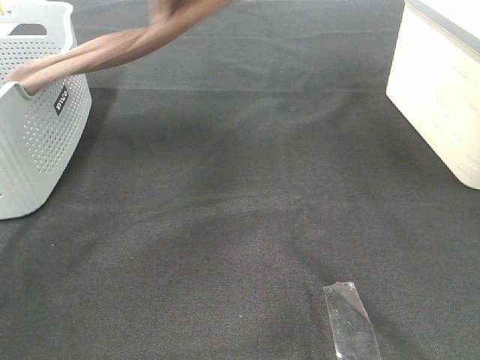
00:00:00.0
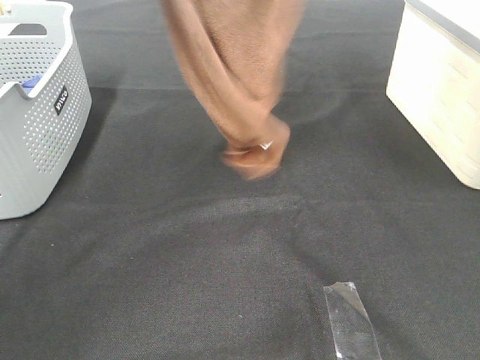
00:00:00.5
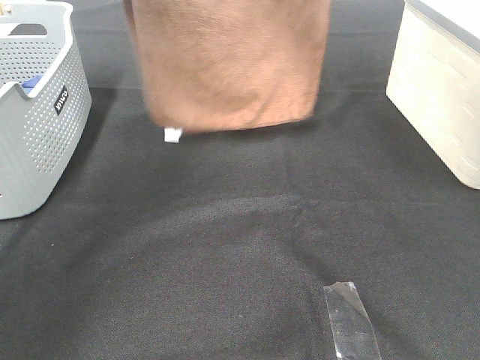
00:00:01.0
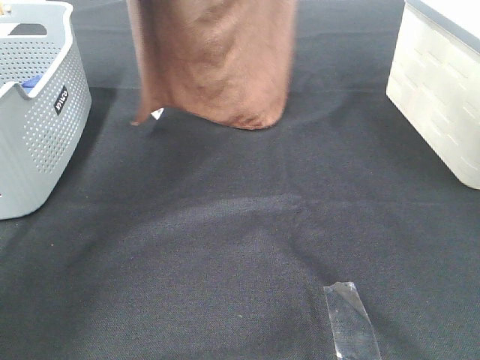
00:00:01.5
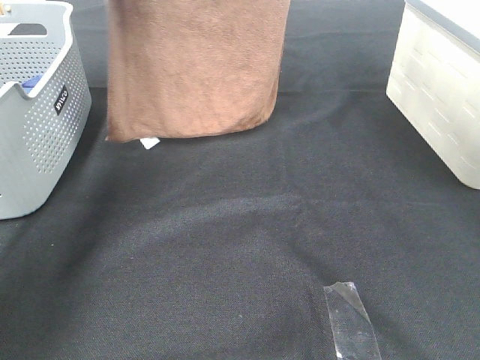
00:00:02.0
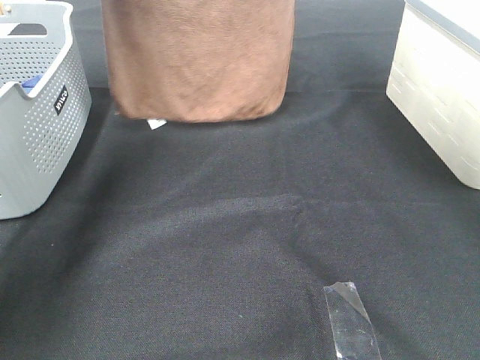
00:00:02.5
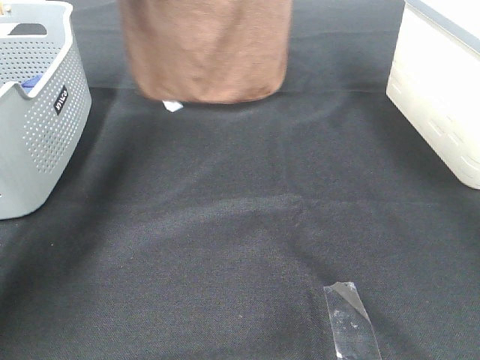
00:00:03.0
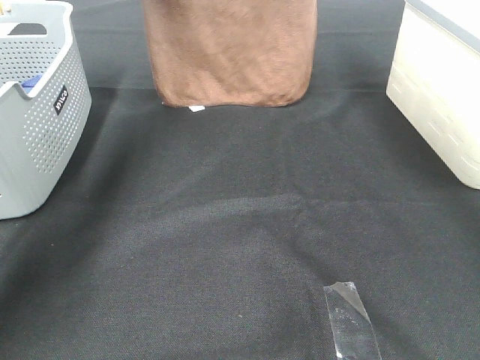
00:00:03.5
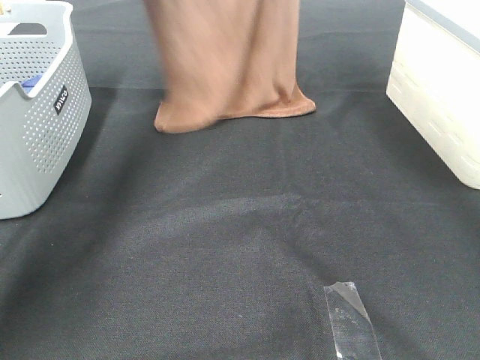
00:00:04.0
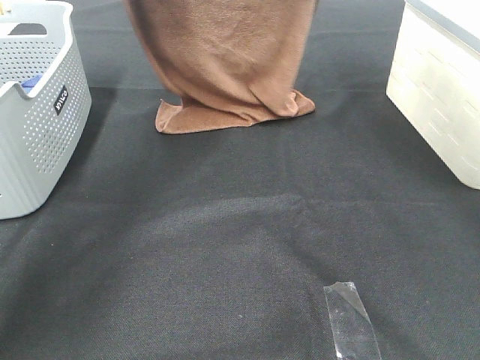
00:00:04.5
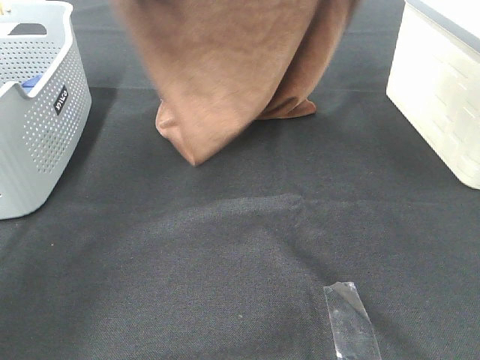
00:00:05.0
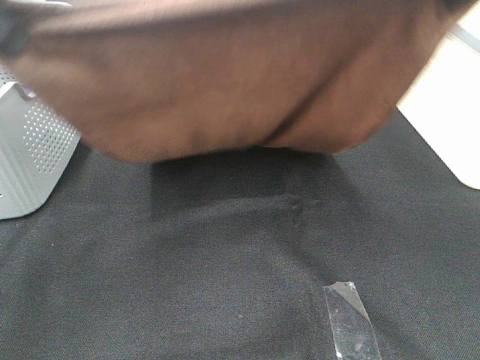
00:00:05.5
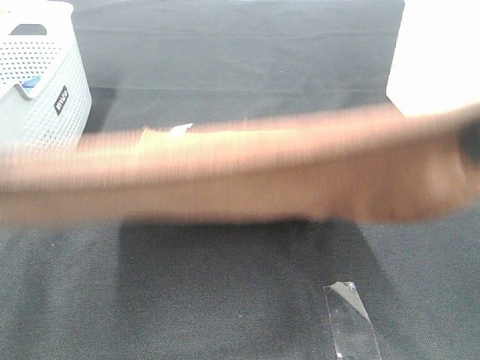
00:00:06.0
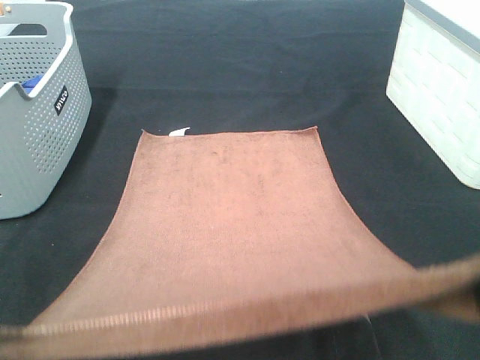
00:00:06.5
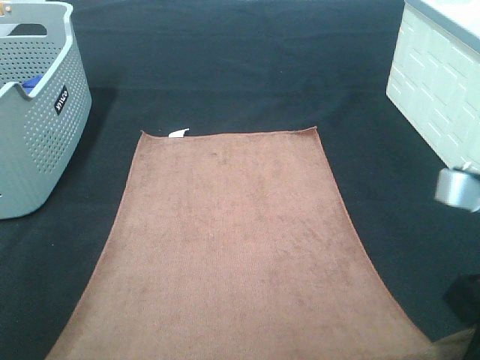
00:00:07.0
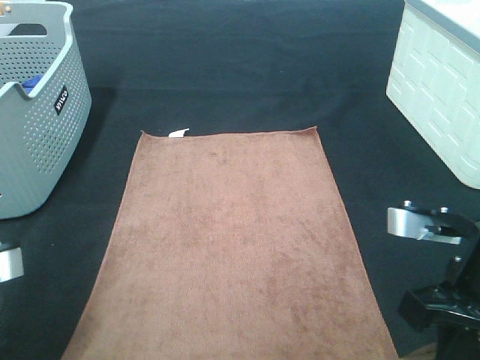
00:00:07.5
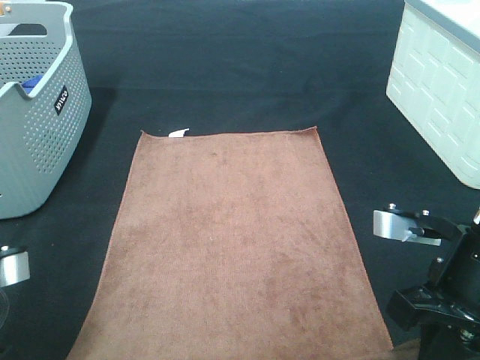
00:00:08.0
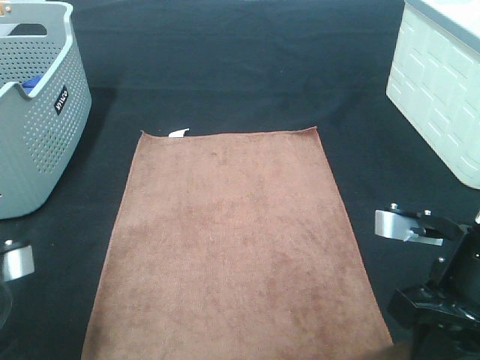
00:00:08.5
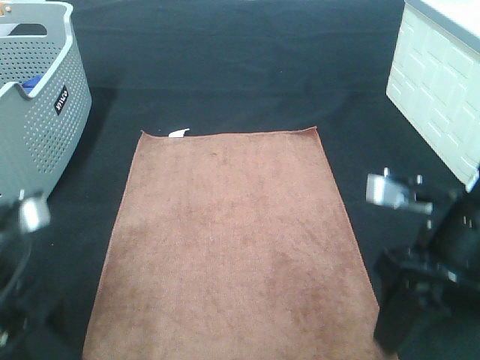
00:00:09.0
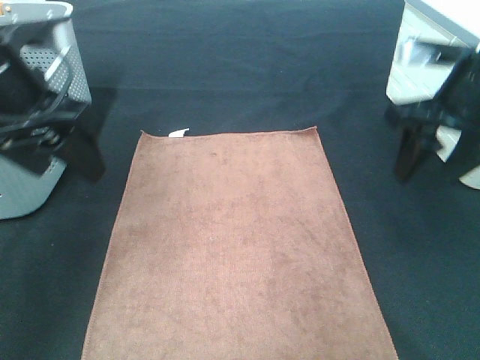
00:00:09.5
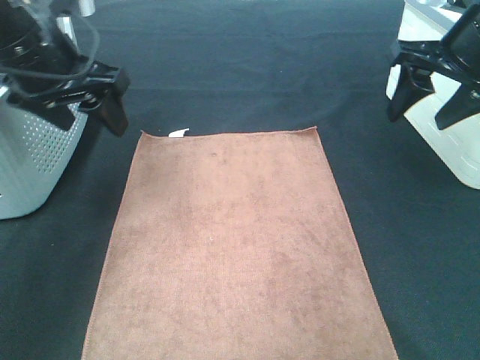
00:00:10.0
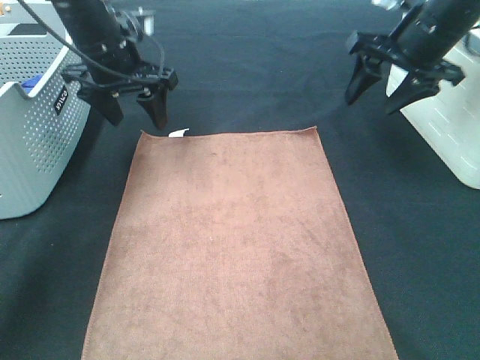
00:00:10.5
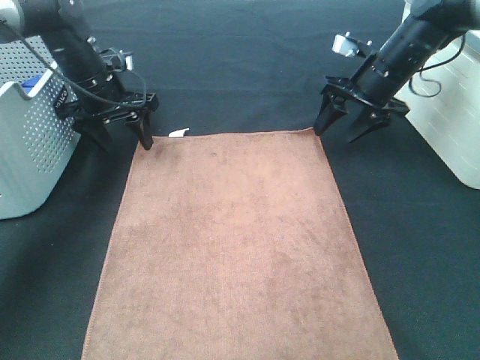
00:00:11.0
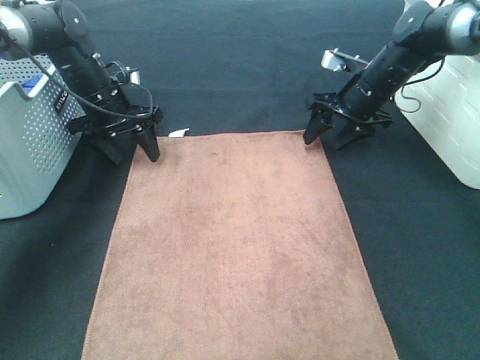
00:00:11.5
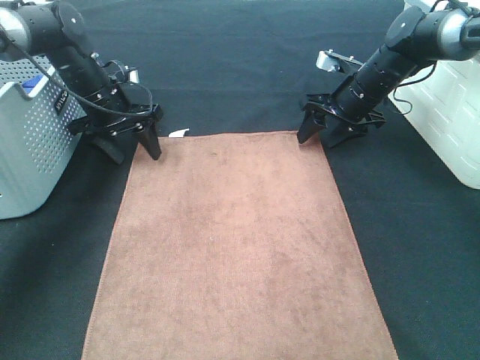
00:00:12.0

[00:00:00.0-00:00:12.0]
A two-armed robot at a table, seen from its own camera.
Task of the whole recording: Remove the towel and place it.
Step, 00:00:00.0 to 00:00:04.0: Left hand: spread the brown towel flat on the table.
Step, 00:00:00.0 to 00:00:04.0: Right hand: spread the brown towel flat on the table.
Step, 00:00:04.5 to 00:00:10.5: Left hand:adjust the brown towel.
Step, 00:00:04.5 to 00:00:10.5: Right hand:adjust the brown towel.
00:00:00.0 to 00:00:02.0: The right gripper travels forward and upward by roughly 10 cm. The left gripper travels forward and to the left by some 15 cm.
00:00:02.0 to 00:00:04.0: The two grippers go some 15 cm downward and forward.
00:00:04.0 to 00:00:06.0: Both grippers move backward, approximately 40 cm.
00:00:06.0 to 00:00:08.0: Both grippers travel together downward, roughly 20 cm.
00:00:08.0 to 00:00:10.0: Both grippers move forward and upward, about 20 cm. The right gripper opens. Meanwhile the left gripper opens.
00:00:10.0 to 00:00:12.0: Both grippers move downward and forward, approximately 20 cm.

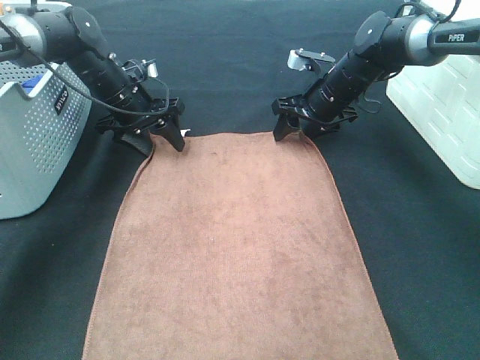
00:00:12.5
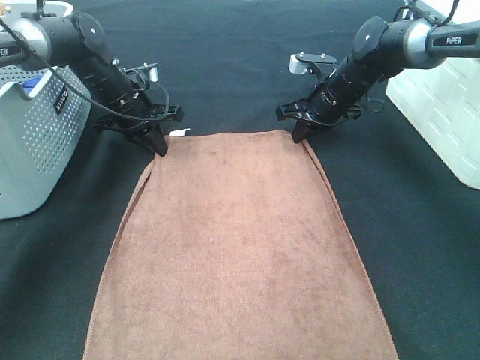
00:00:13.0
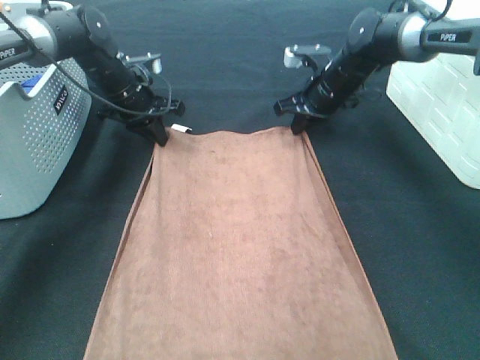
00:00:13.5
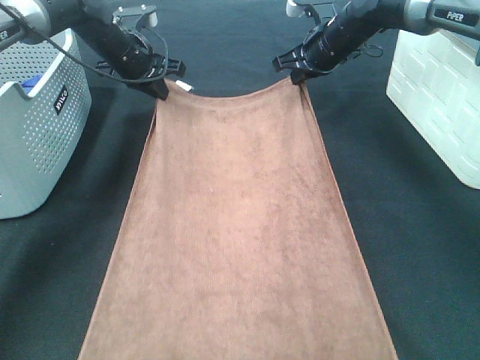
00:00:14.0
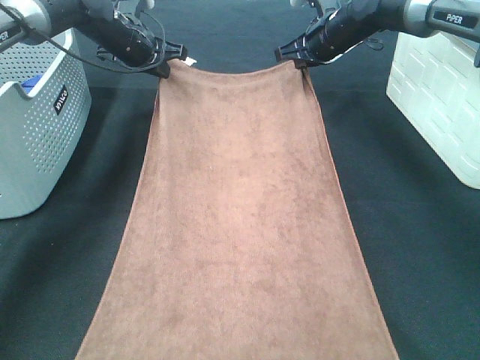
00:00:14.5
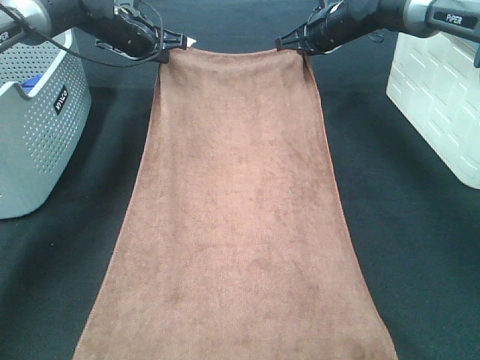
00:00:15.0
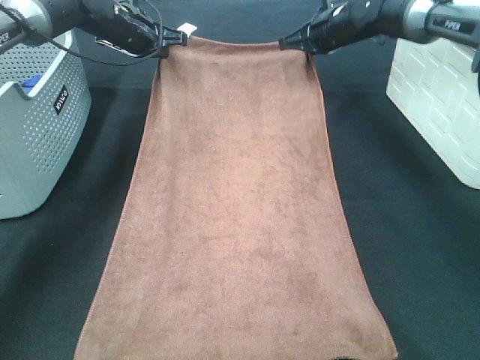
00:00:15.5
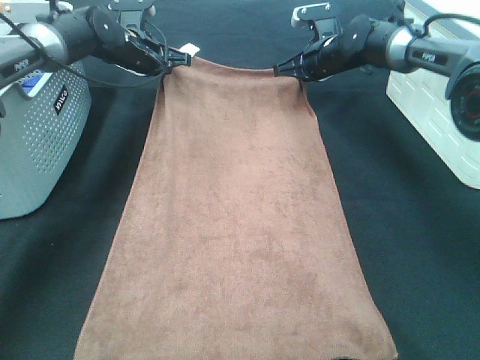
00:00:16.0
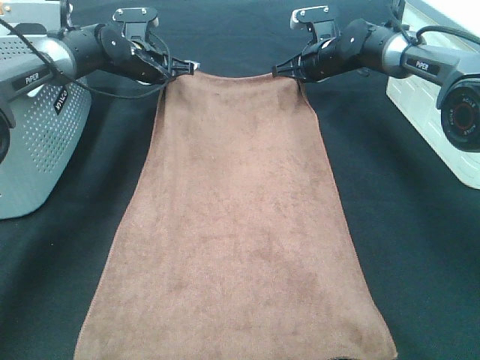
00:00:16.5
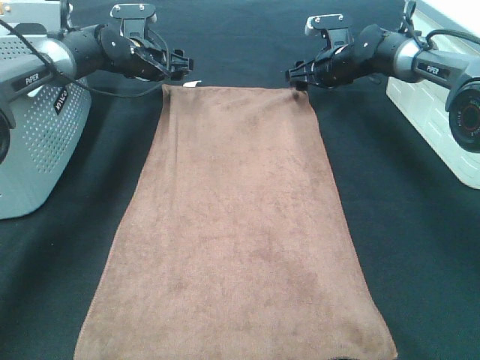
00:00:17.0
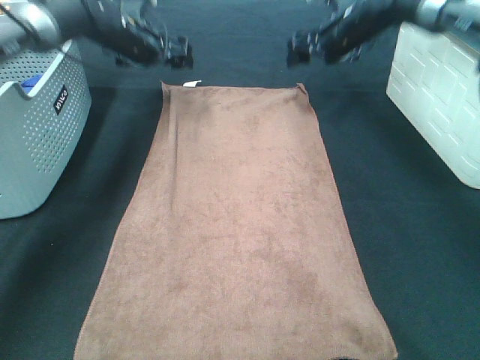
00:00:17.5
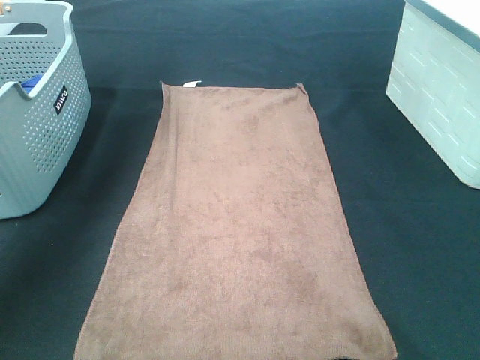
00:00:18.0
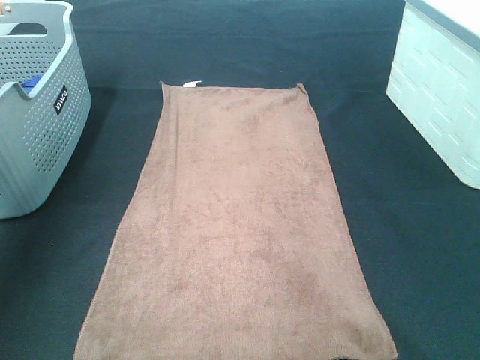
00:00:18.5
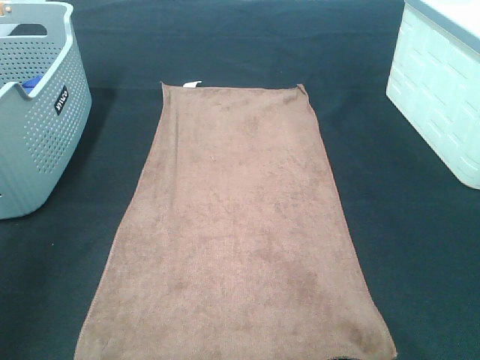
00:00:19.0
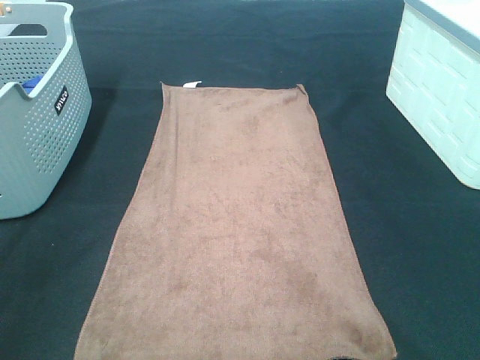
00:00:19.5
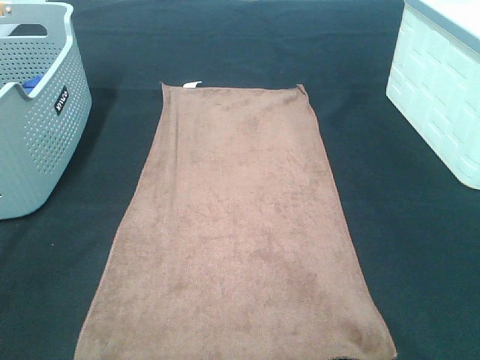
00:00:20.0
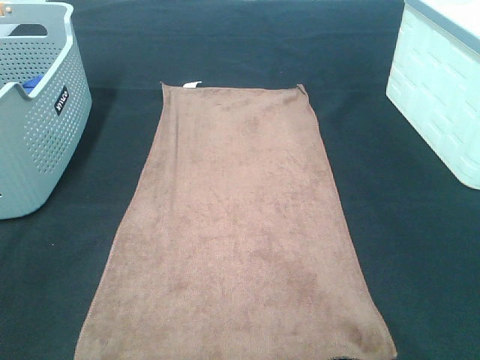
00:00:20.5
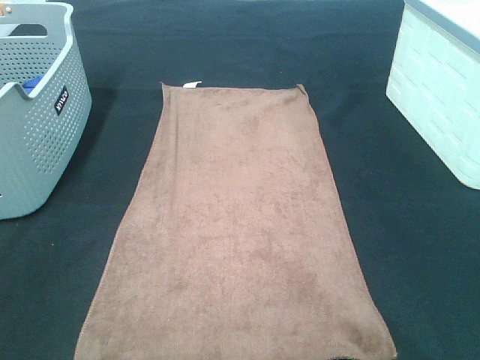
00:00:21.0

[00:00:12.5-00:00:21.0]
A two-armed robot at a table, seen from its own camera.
Task of the whole recording: Remove the towel and place it.
00:00:12.5 to 00:00:14.5: The two grippers go some 10 cm upward and forward. The right gripper closes, while the left gripper closes its fingers.
00:00:14.5 to 00:00:16.5: The two grippers go approximately 5 cm downward.
00:00:16.5 to 00:00:19.0: The two grippers go some 60 cm backward and upward. The left gripper opens up, while the right gripper opens up.

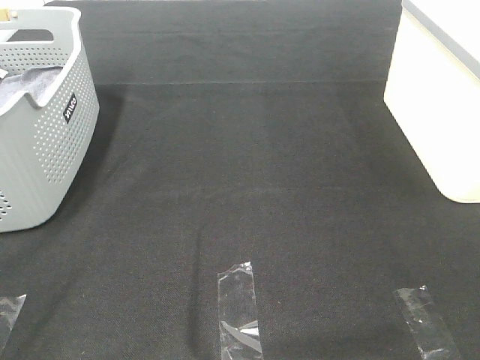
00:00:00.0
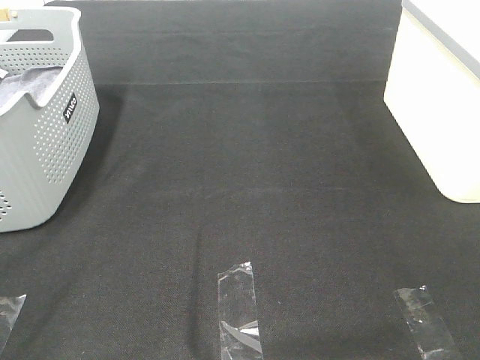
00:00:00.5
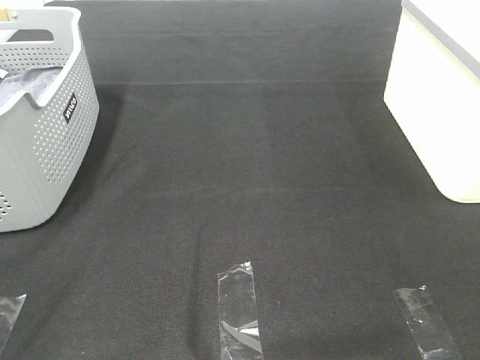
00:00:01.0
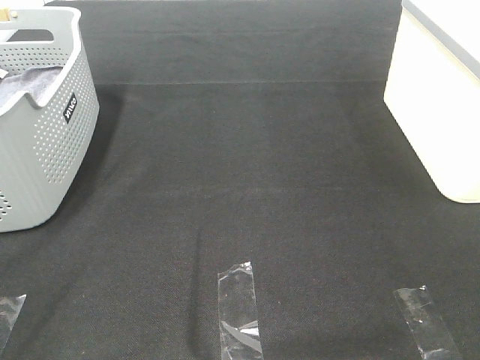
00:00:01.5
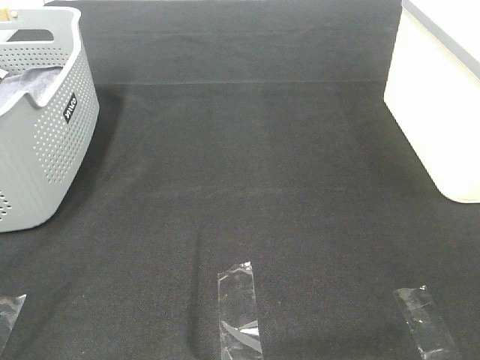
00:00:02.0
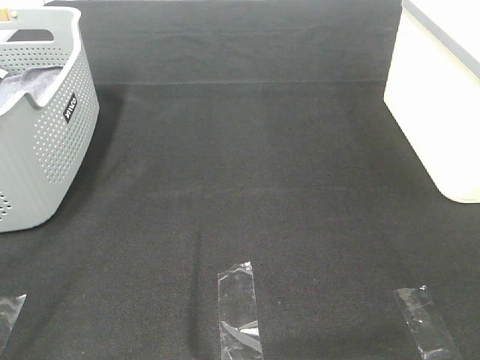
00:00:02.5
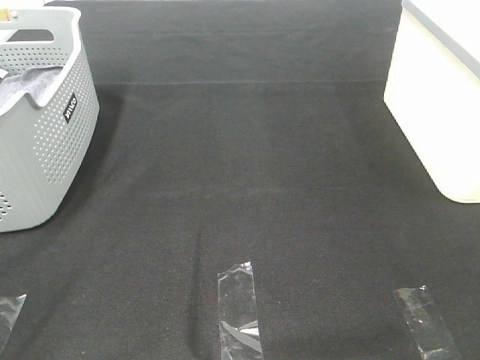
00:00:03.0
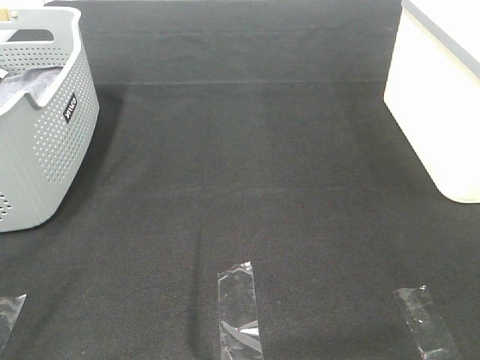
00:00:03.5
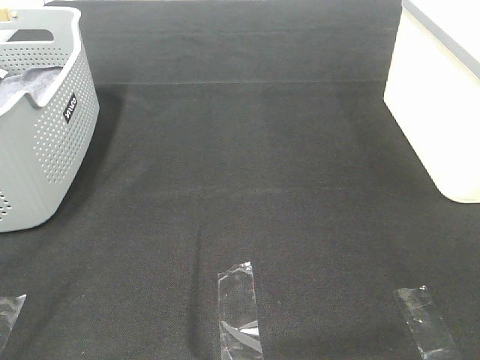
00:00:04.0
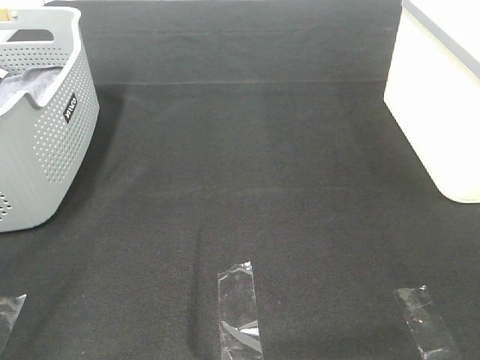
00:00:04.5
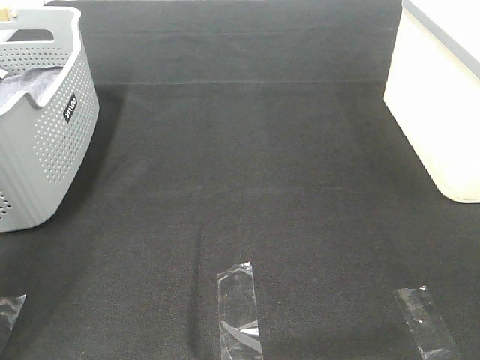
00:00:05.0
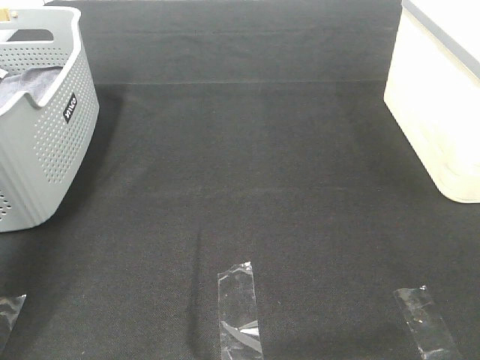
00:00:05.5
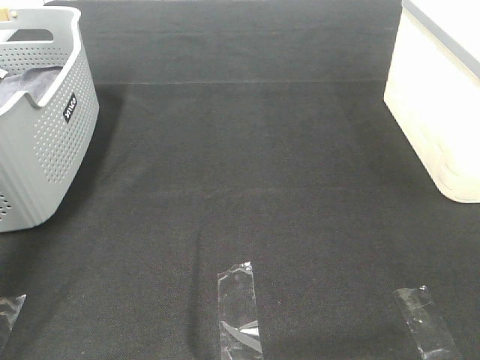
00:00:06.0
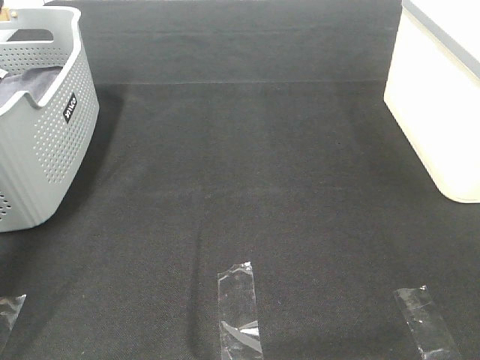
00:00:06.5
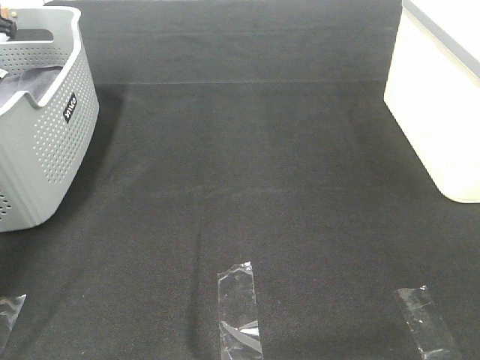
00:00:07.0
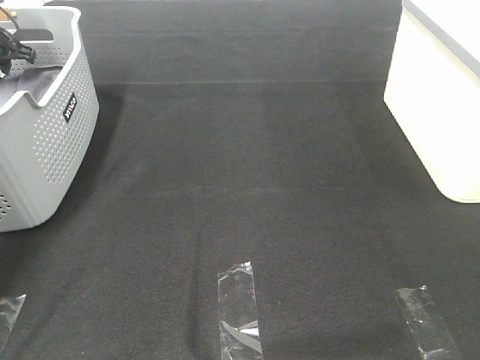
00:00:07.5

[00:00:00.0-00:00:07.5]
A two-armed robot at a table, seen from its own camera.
Task of the whole recording: Remove the towel and place it.
00:00:00.0 to 00:00:04.0: Both grippers stay about where they are.
00:00:04.0 to 00:00:05.5: The left gripper travels forward by some 35 cm.
00:00:05.5 to 00:00:07.5: The left gripper shifts some 30 cm forward and downward.
